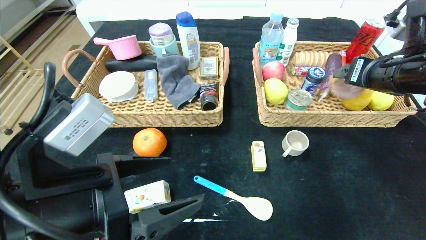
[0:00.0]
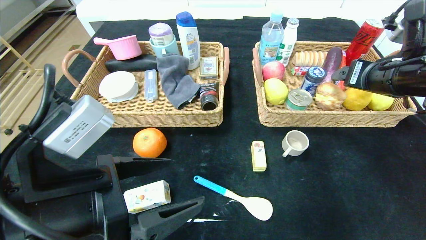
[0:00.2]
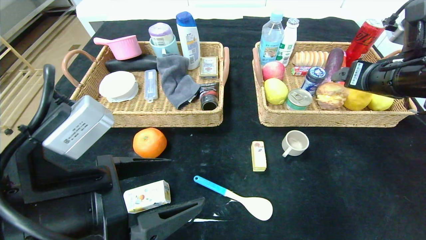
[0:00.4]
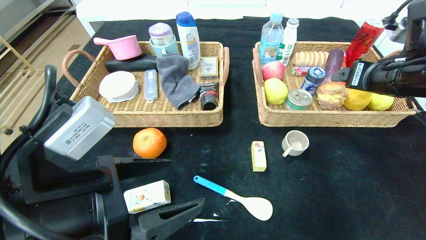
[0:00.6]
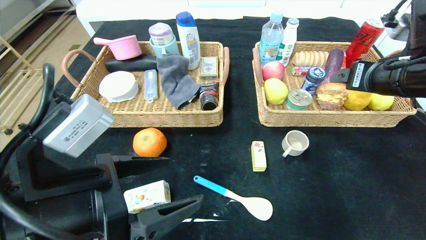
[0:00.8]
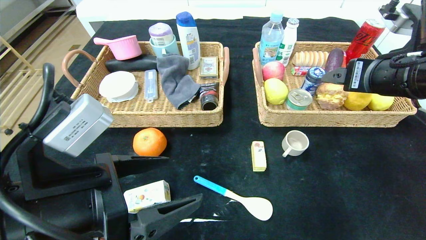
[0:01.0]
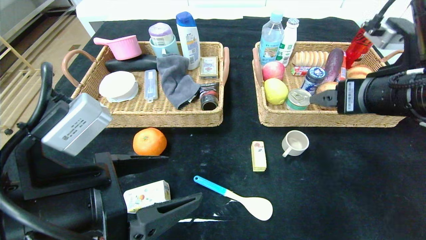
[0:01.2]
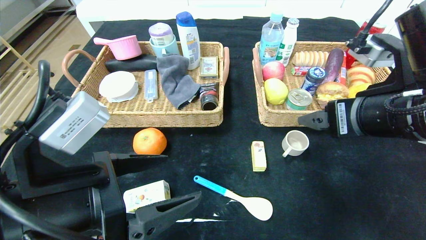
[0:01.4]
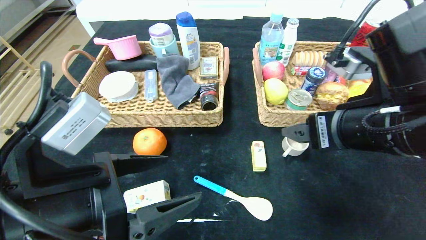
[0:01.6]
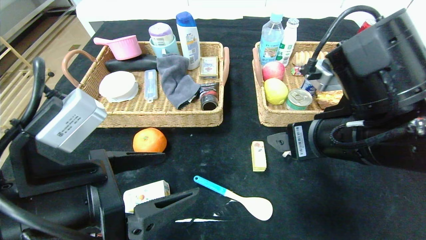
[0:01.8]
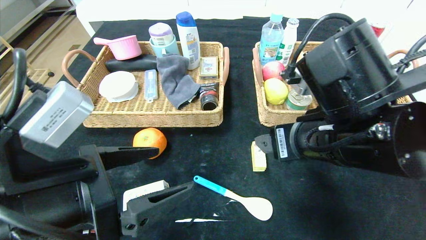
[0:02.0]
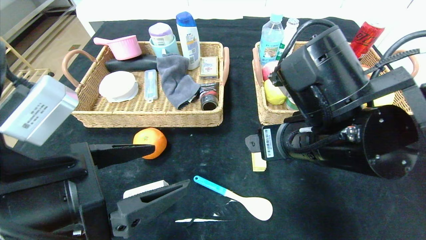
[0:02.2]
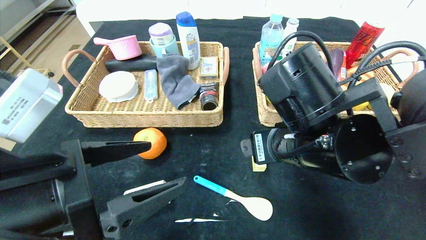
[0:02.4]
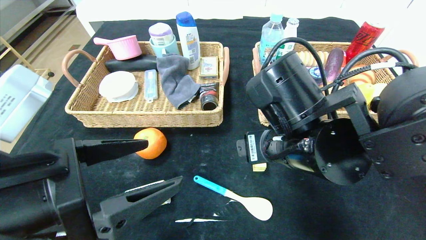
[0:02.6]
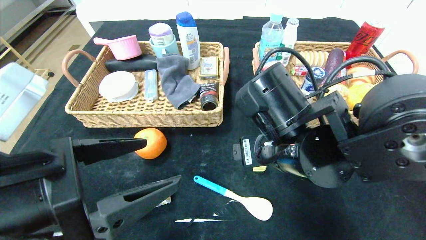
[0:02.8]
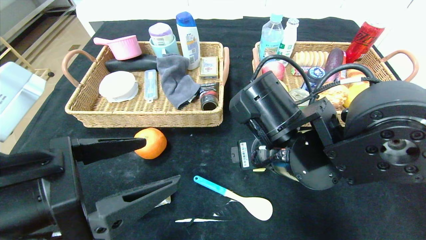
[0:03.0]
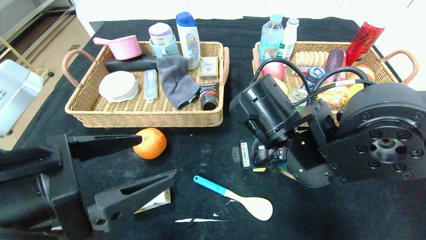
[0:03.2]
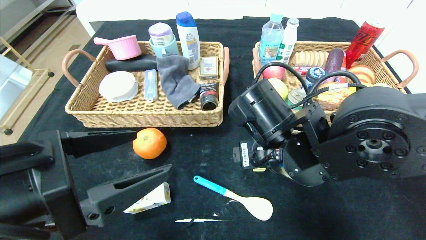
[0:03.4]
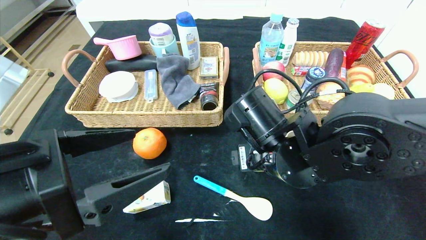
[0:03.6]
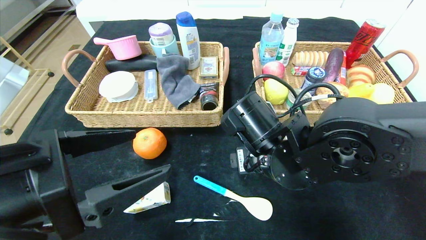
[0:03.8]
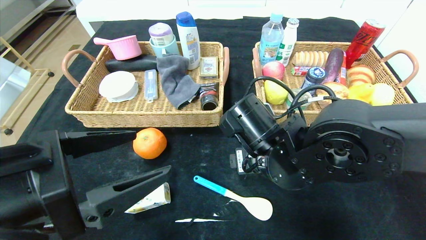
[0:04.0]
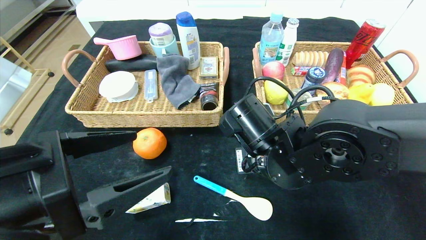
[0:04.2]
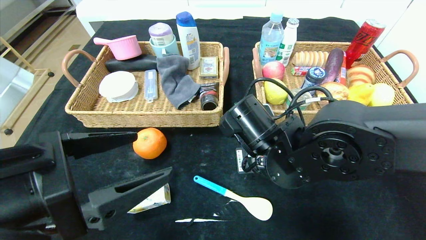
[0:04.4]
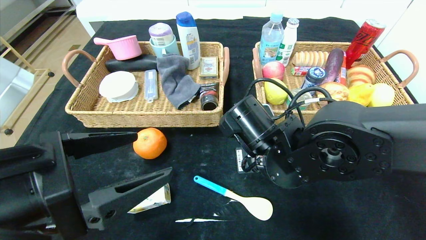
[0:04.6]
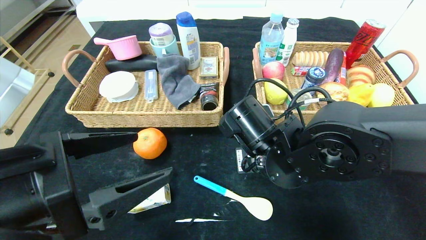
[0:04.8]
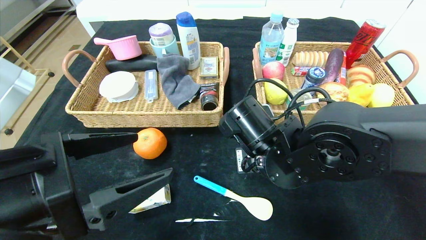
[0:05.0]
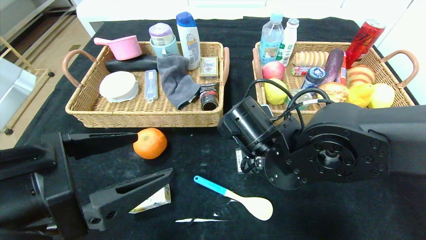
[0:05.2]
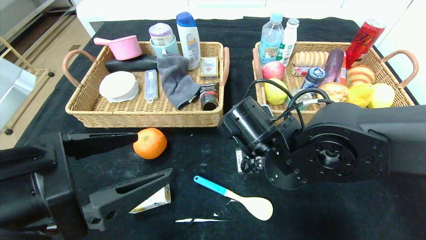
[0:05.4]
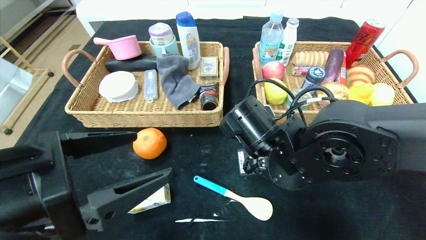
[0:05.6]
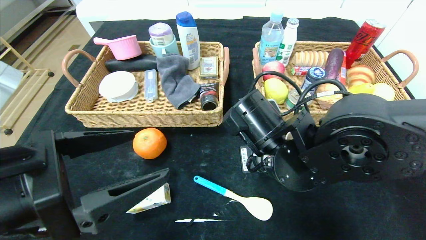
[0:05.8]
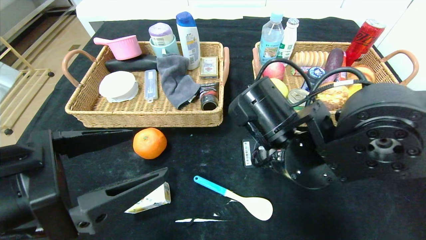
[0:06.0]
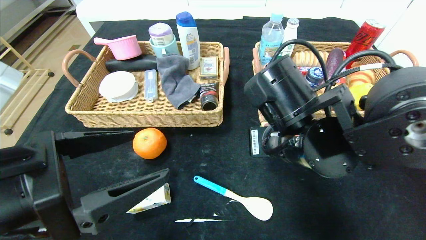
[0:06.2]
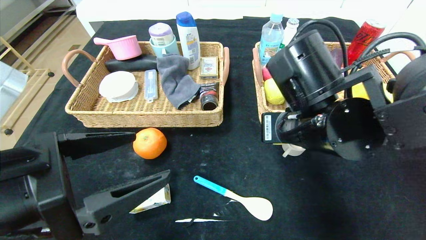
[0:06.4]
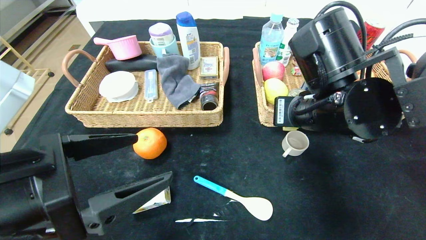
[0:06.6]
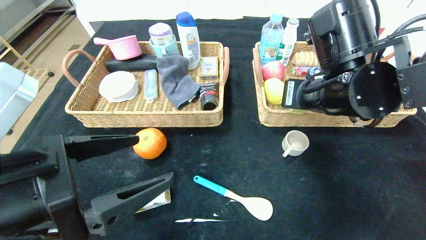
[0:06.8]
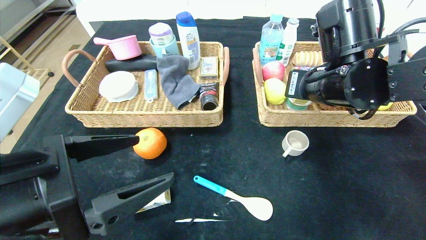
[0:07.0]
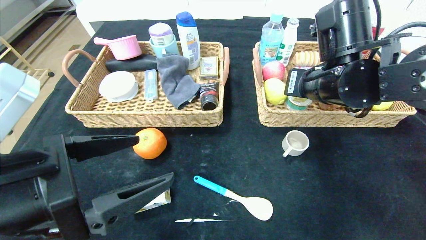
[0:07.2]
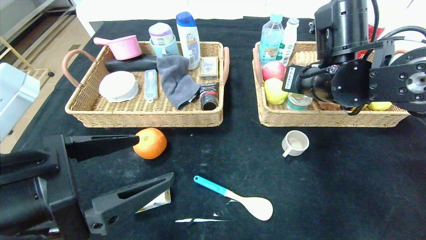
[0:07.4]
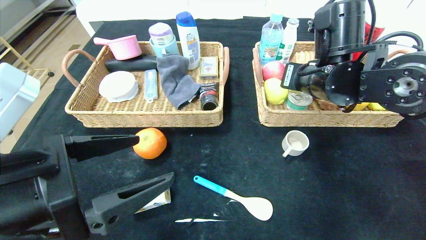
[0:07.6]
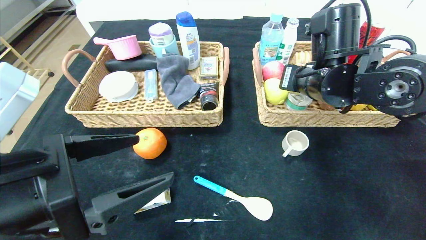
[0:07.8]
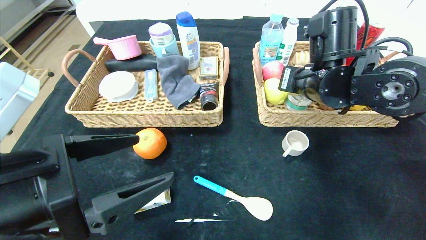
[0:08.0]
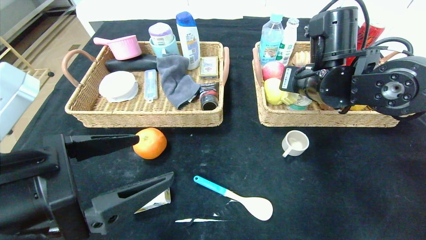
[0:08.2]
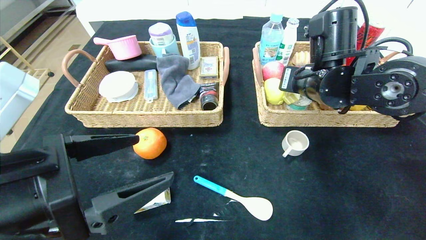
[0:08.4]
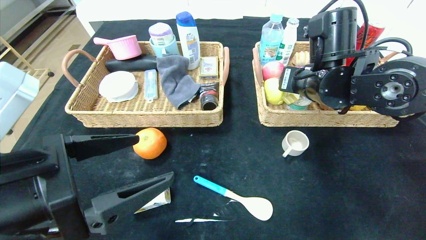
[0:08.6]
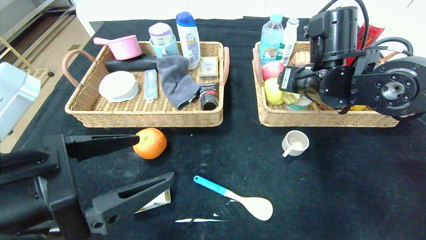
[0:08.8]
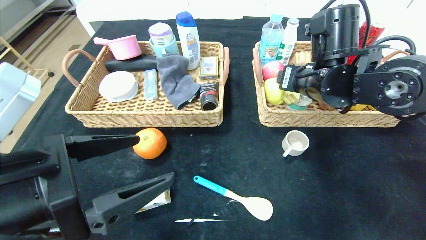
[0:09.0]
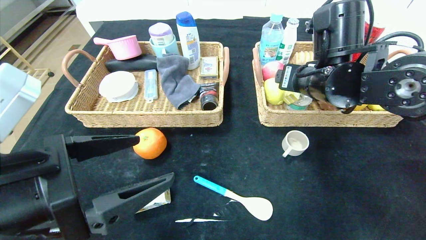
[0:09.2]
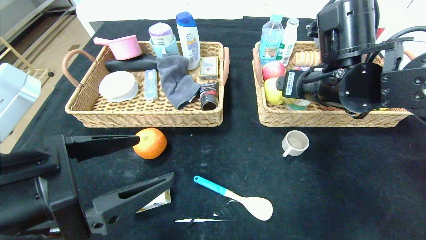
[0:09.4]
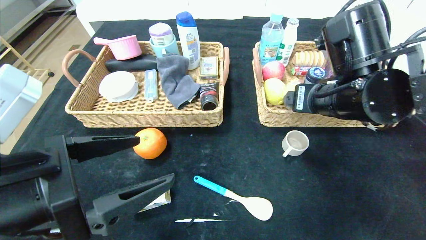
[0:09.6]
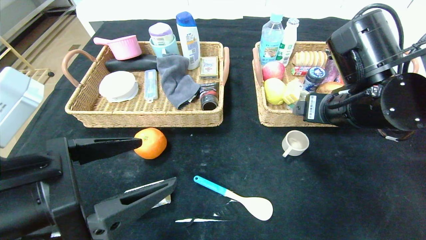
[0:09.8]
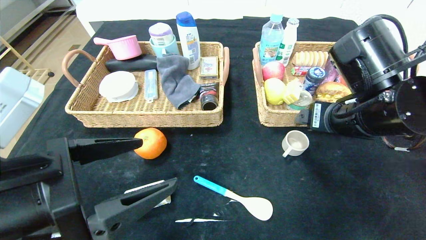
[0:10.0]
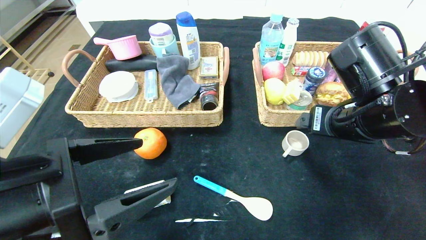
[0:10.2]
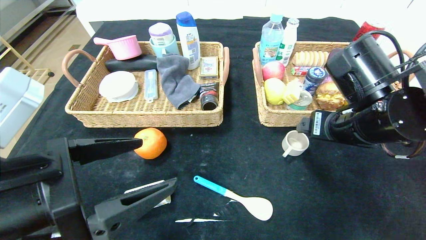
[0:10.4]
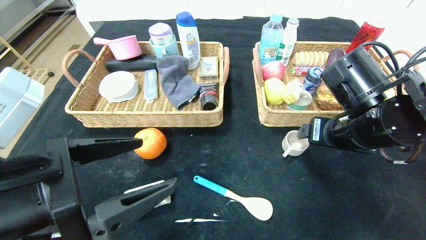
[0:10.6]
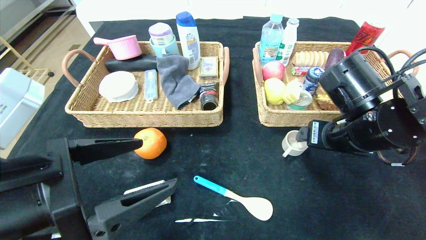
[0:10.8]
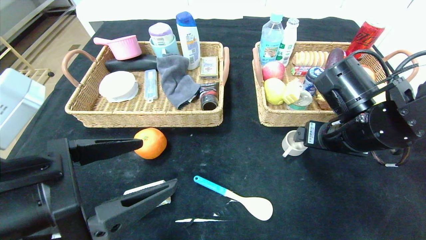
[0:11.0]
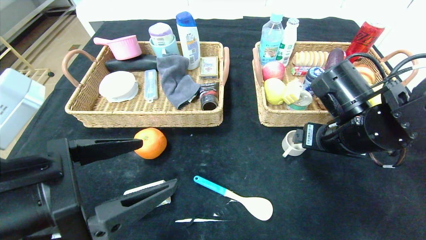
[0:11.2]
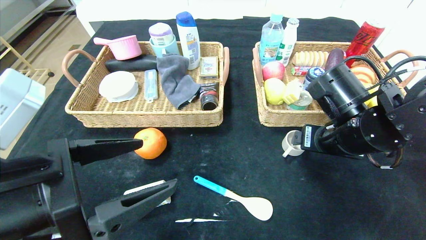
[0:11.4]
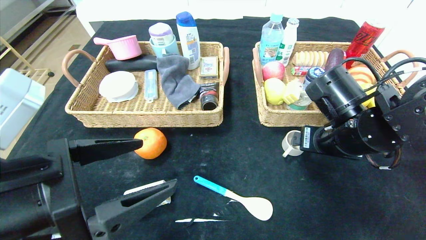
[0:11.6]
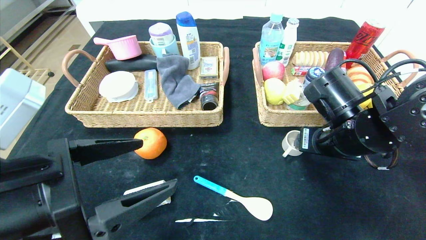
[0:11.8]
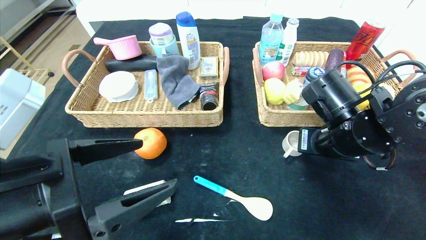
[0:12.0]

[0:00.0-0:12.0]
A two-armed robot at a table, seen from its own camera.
Step, 0:02.0 to 0:10.4: Pick up the yellow cake and put it in the right basket.
0:00.0 to 0:01.6: The right gripper moves backward and to the left, roughly 15 cm.
0:01.6 to 0:03.0: The right gripper shifts some 10 cm to the left and downward.
0:03.0 to 0:04.4: The right gripper closes.
0:04.4 to 0:06.0: The grippers move only a little.
0:06.0 to 0:07.6: The right gripper goes some 15 cm forward, to the right and upward.
0:07.6 to 0:09.0: The right gripper opens.
0:09.0 to 0:10.4: The right gripper travels backward by about 10 cm.
0:10.4 to 0:12.0: The right gripper closes up.

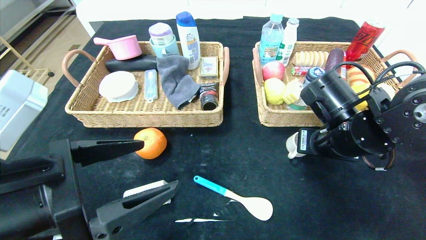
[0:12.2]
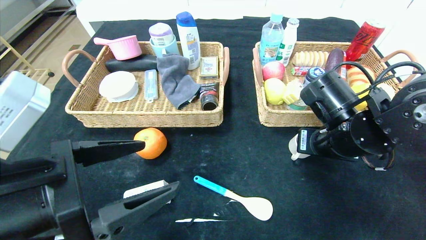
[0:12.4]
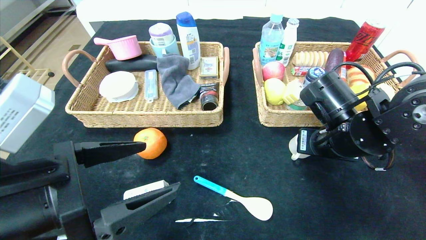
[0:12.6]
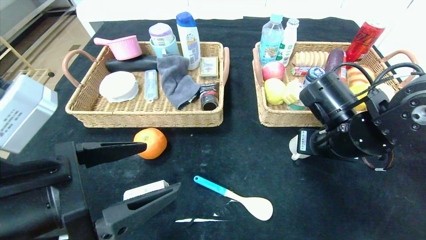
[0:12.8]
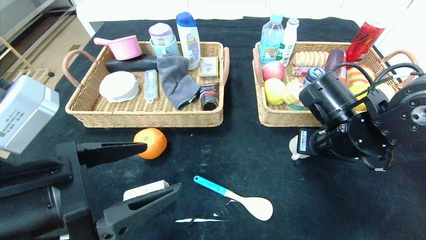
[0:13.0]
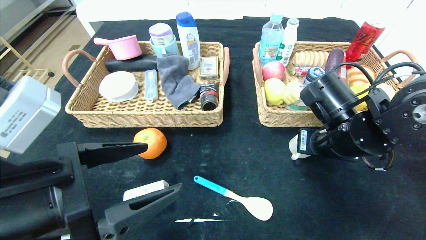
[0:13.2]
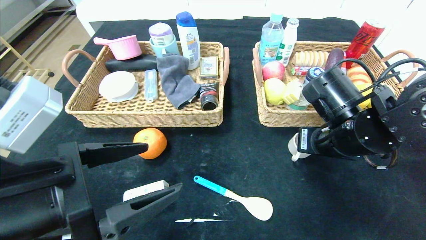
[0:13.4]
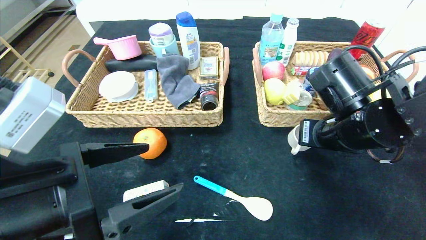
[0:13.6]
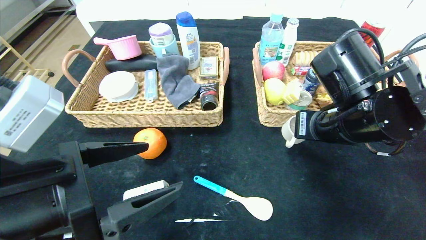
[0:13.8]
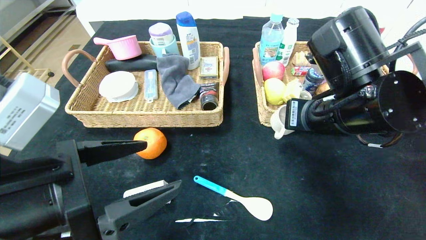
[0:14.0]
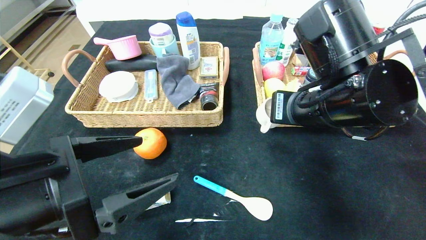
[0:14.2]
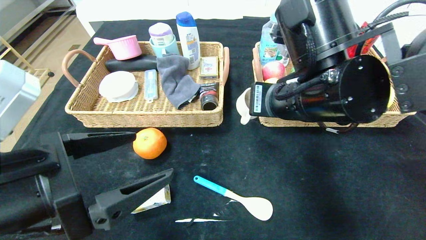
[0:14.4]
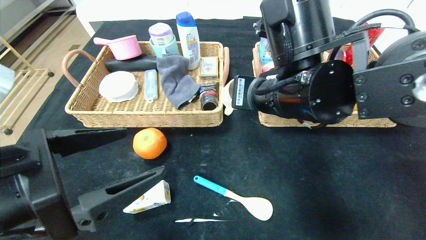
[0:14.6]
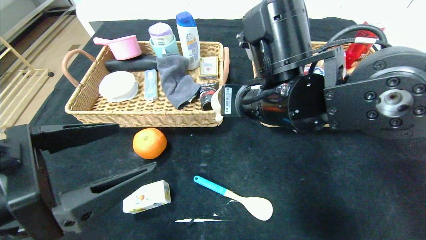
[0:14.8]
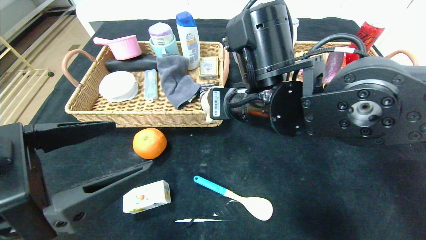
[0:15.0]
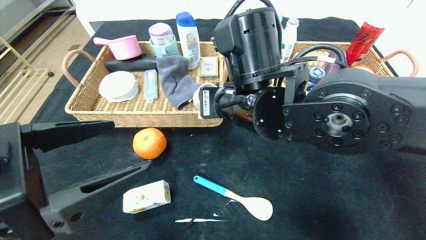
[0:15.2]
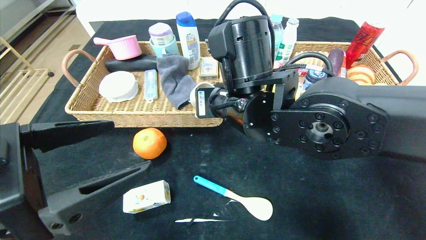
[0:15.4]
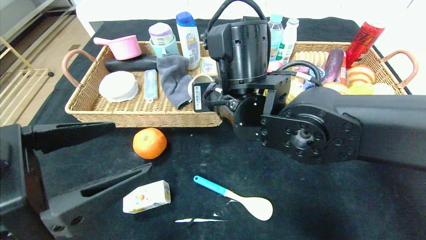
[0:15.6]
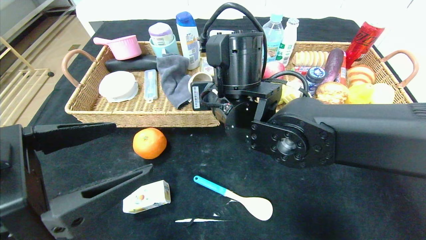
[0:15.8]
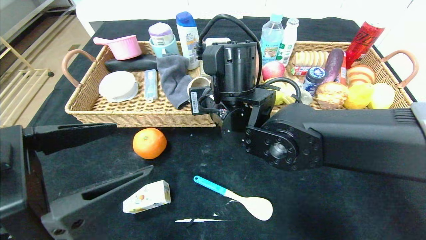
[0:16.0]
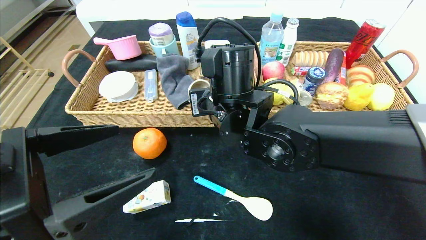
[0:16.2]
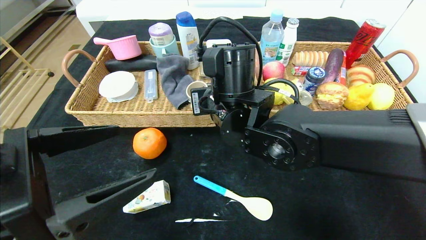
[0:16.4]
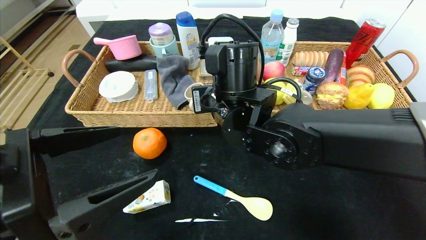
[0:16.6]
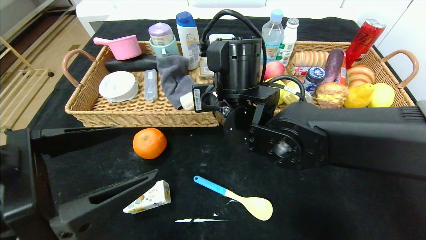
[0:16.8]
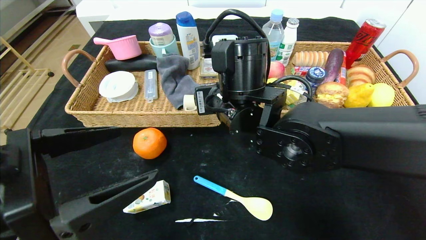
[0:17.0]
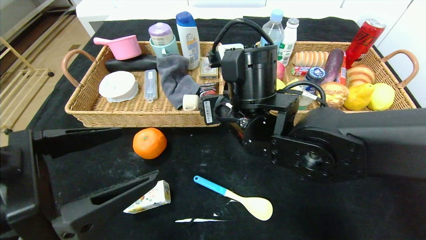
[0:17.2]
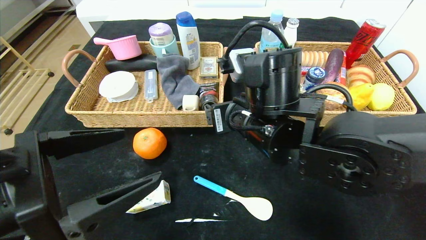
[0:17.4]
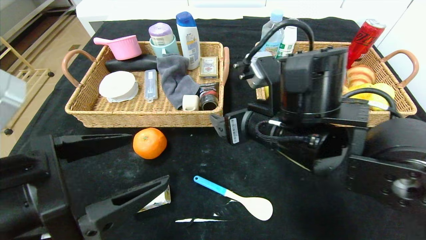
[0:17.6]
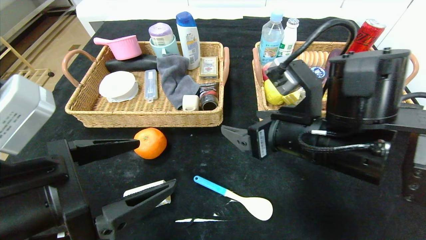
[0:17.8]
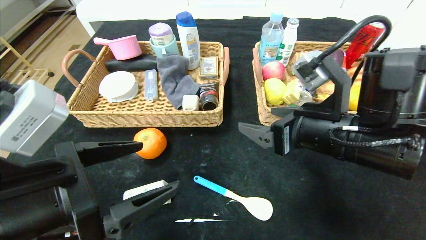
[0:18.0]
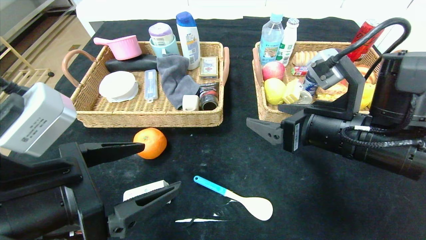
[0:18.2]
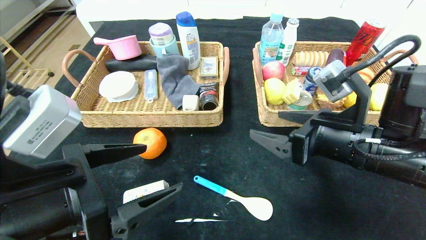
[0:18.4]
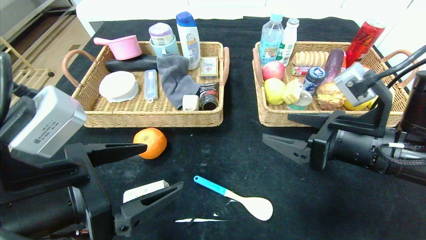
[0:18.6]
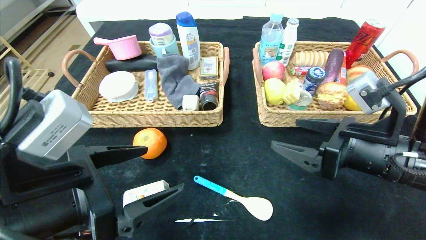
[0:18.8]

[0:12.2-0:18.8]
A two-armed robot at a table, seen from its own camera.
Step, 0:12.2 to 0:17.8: Pick up the tea cup and put it in the left basket.
0:12.2 to 0:13.8: The grippers move only a little.
0:13.8 to 0:15.4: The right gripper heads to the left, covering some 15 cm.
0:15.4 to 0:17.2: The right gripper opens its fingers.
0:17.2 to 0:18.8: The right gripper heads to the right, covering approximately 20 cm.
